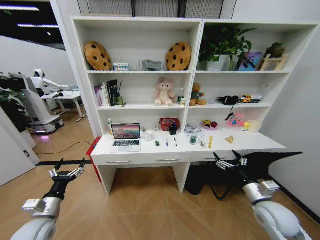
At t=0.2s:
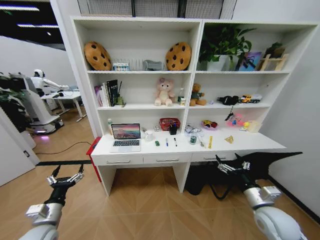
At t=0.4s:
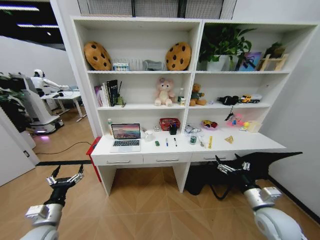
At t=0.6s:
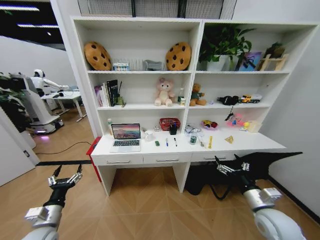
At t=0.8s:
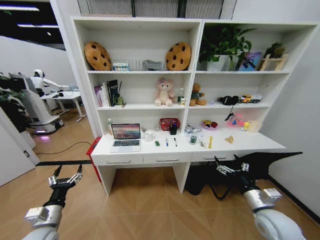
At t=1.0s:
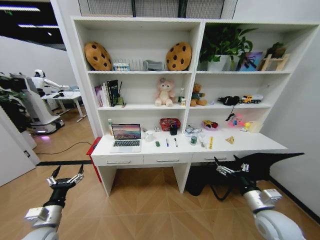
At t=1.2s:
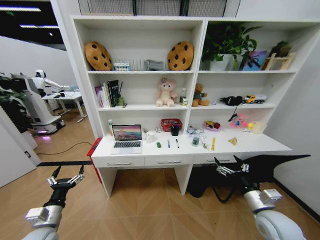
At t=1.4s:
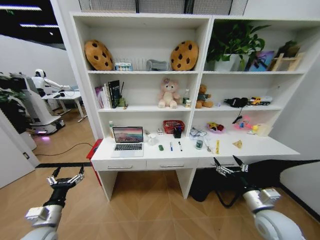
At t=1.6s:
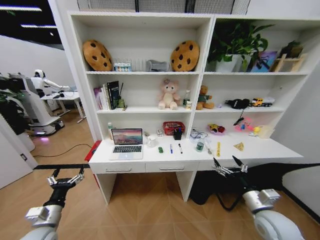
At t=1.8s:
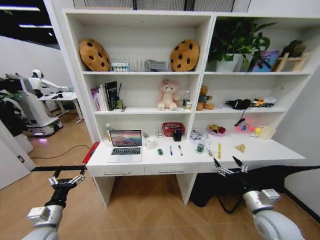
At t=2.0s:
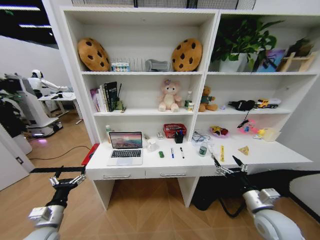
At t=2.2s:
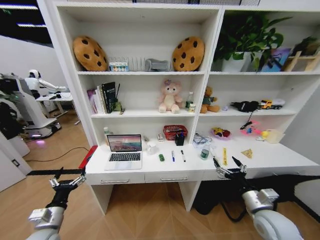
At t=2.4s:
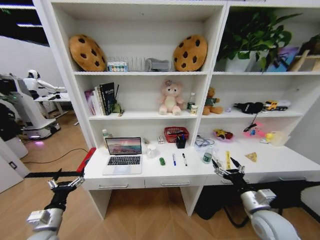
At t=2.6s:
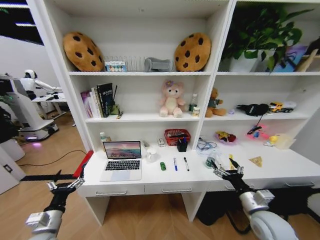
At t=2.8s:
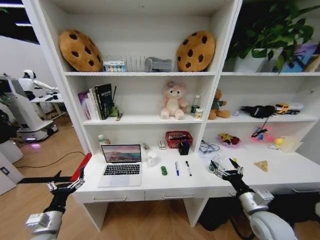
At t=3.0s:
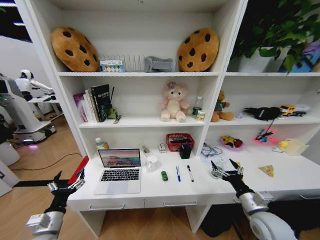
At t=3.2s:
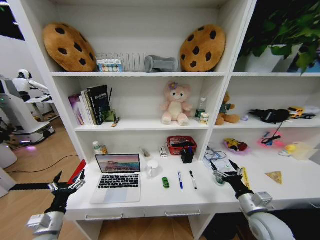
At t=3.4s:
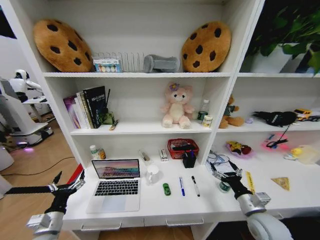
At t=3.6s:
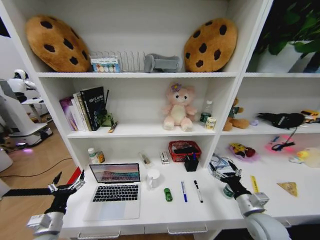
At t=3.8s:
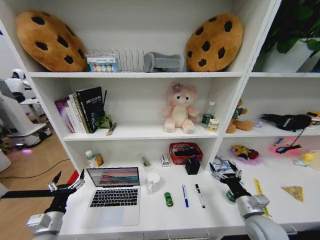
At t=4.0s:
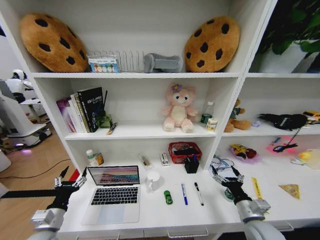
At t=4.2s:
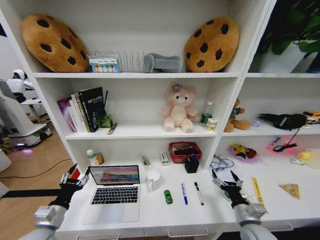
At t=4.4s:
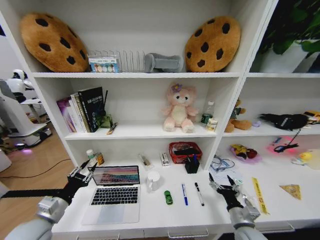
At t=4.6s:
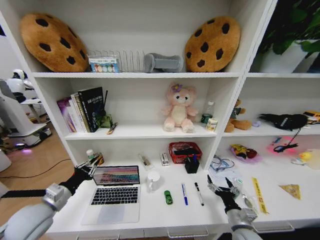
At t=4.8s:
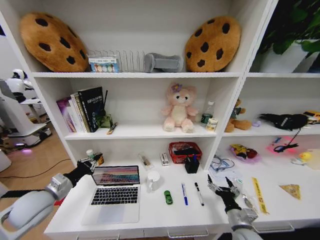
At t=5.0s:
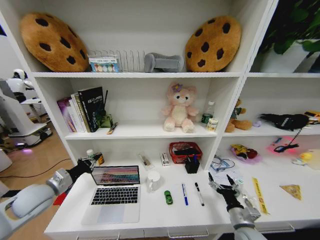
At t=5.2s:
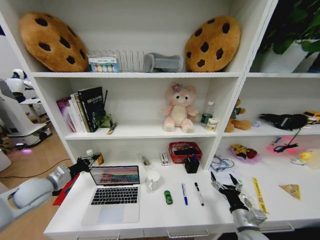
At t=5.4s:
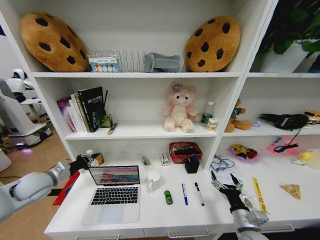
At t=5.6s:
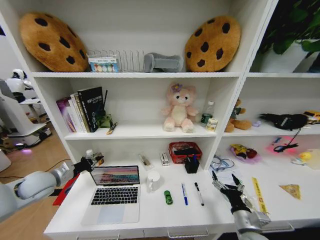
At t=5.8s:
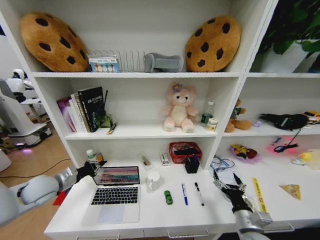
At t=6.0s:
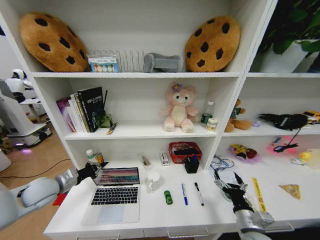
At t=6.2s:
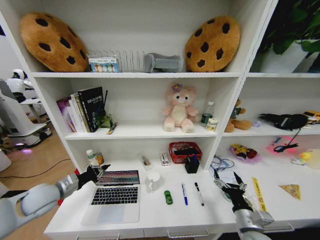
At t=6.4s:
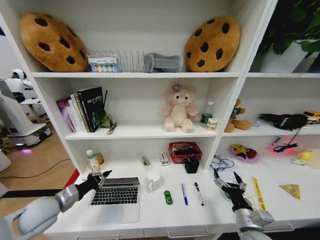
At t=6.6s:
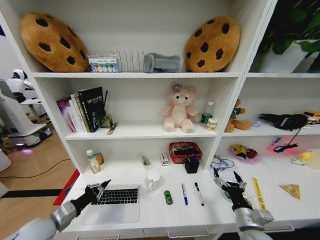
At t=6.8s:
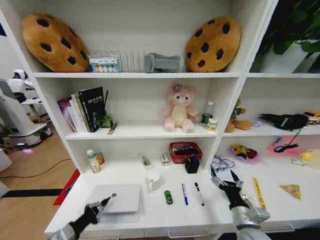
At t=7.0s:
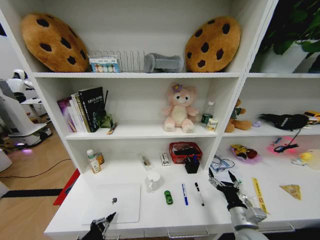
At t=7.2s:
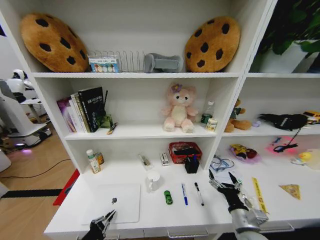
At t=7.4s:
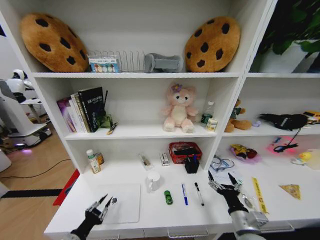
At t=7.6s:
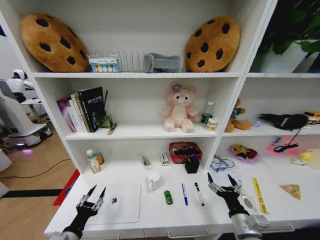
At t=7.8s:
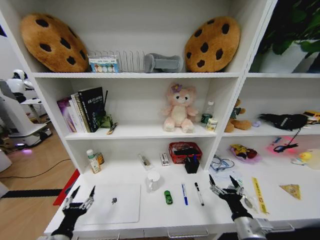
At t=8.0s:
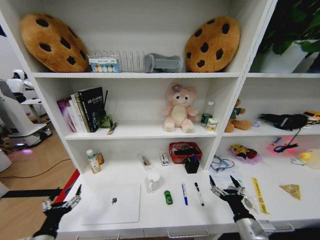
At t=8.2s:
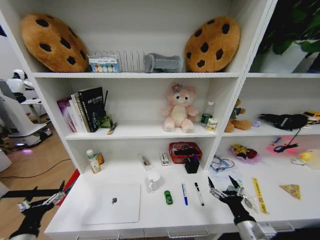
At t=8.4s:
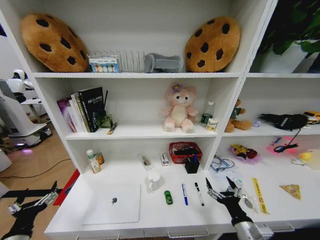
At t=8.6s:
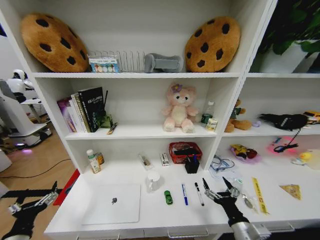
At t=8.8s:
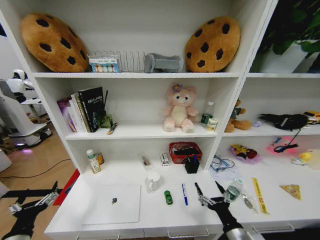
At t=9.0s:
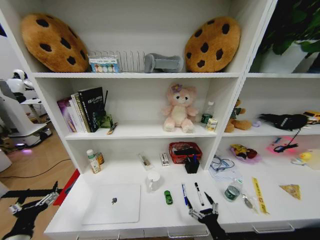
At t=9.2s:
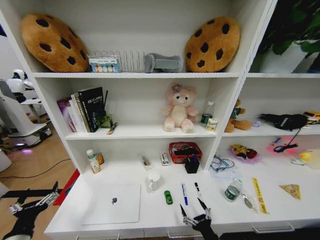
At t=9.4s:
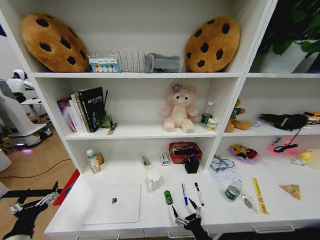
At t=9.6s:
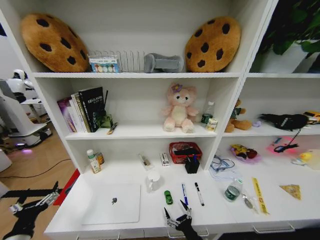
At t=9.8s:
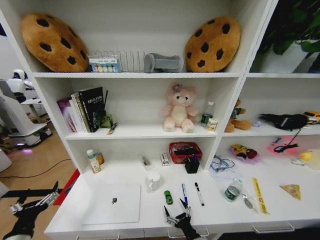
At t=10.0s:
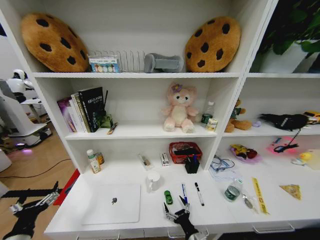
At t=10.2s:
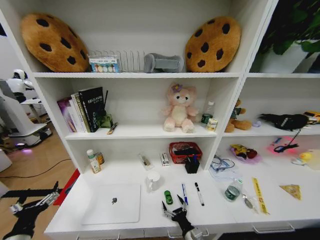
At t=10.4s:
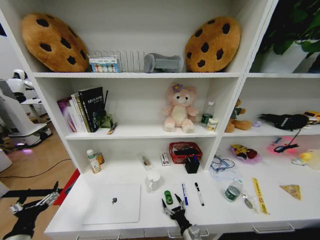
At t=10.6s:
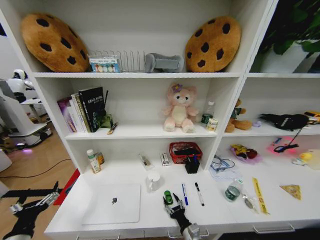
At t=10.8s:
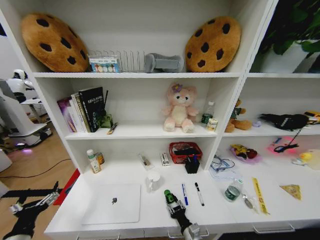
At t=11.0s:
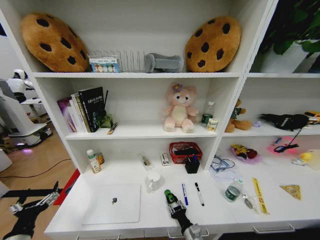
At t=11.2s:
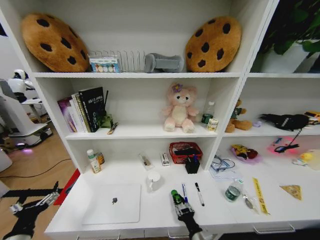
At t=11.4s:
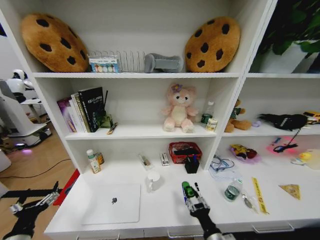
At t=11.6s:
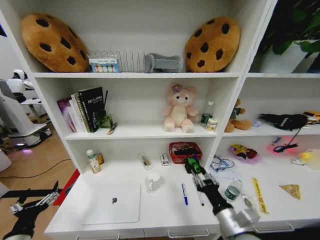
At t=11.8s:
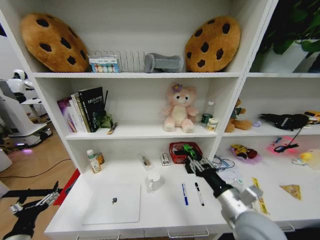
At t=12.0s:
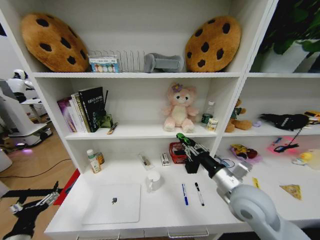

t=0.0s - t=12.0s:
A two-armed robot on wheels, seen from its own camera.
Task of the whole recording: Organize the objects on the table.
t=3.0s - t=4.4s: The left gripper travels upward by some 5 cm, and closes up. The right gripper goes roughly 5 cm downward.
t=4.4s - t=6.0s: The left gripper travels forward by roughly 10 cm, and closes.
t=6.0s - t=7.6s: The left gripper shifts roughly 25 cm backward, downward and to the right, and opens.
t=7.6s - t=9.0s: The right gripper is displaced backward by roughly 5 cm. Meanwhile the left gripper is displaced to the left by about 10 cm, and opens up.
t=9.0s - t=10.4s: The right gripper is displaced downward, to the left and forward by about 15 cm.
t=10.4s - t=12.0s: The right gripper travels upward by roughly 30 cm, and closes its fingers.

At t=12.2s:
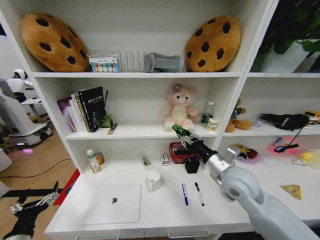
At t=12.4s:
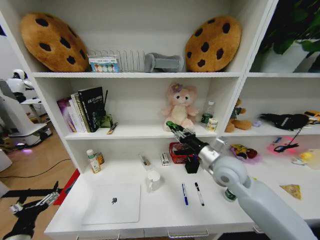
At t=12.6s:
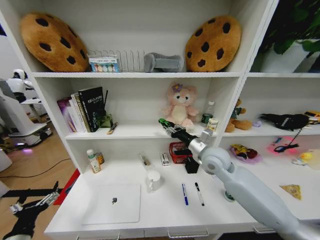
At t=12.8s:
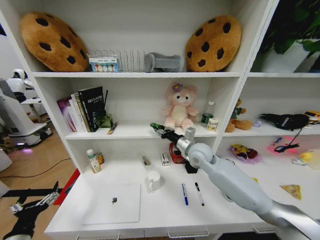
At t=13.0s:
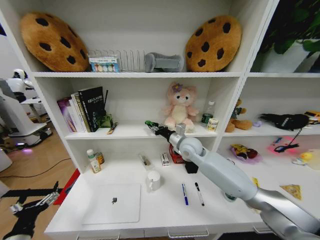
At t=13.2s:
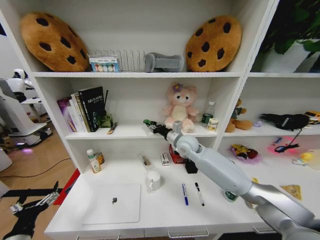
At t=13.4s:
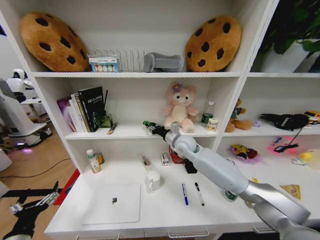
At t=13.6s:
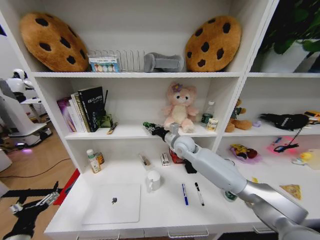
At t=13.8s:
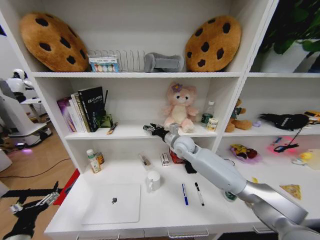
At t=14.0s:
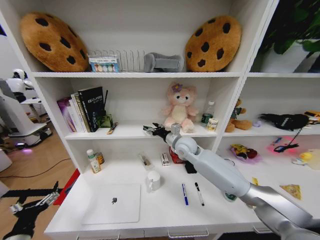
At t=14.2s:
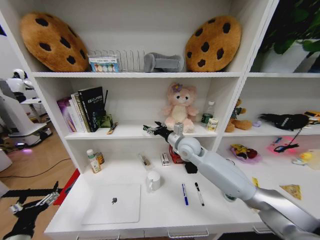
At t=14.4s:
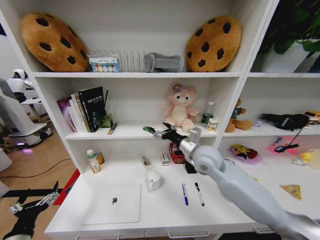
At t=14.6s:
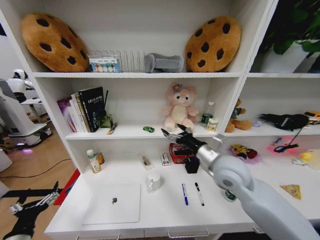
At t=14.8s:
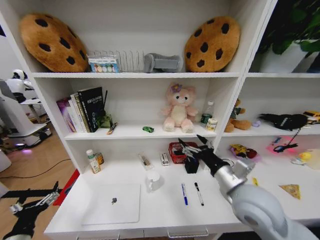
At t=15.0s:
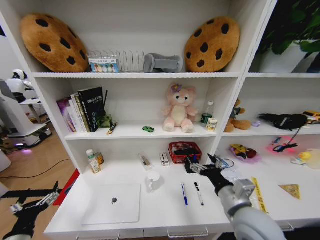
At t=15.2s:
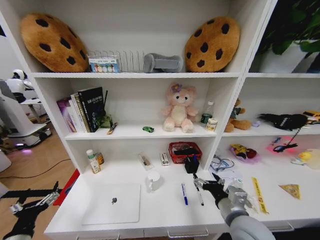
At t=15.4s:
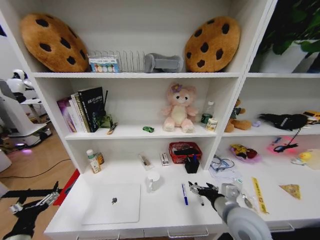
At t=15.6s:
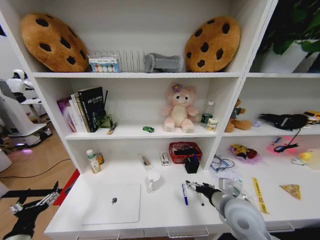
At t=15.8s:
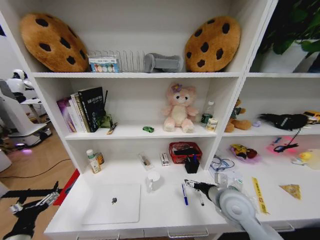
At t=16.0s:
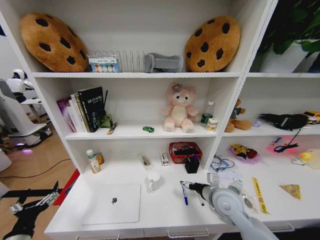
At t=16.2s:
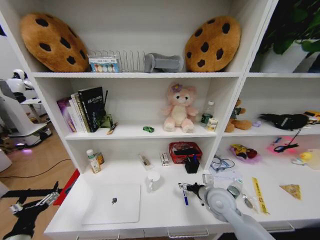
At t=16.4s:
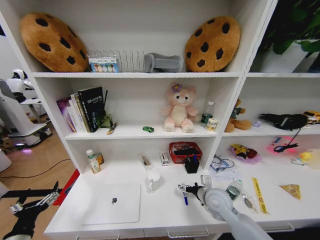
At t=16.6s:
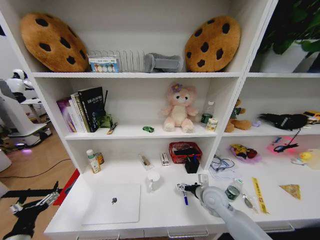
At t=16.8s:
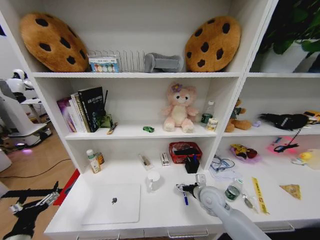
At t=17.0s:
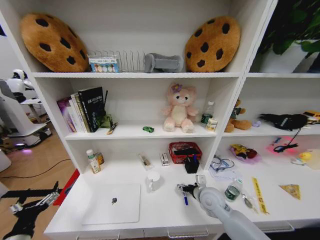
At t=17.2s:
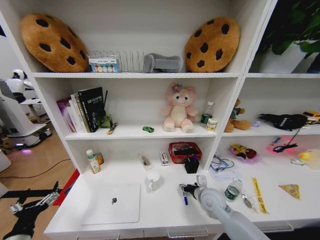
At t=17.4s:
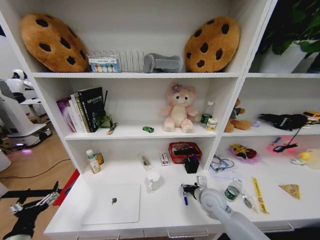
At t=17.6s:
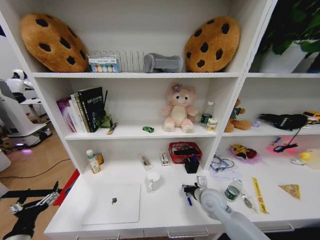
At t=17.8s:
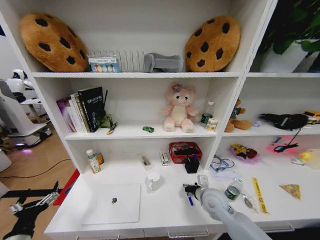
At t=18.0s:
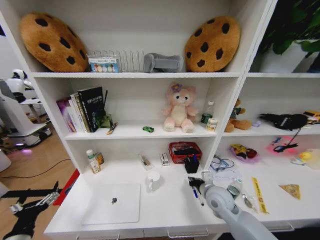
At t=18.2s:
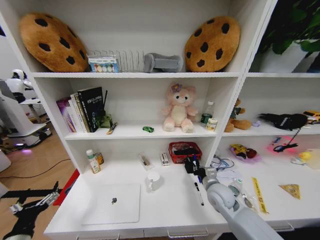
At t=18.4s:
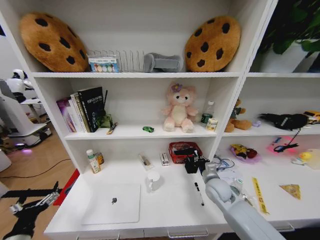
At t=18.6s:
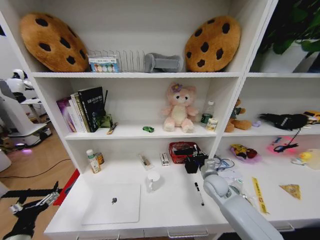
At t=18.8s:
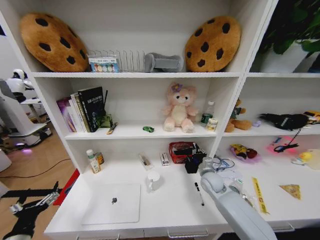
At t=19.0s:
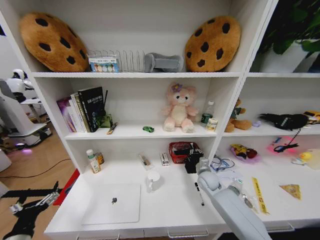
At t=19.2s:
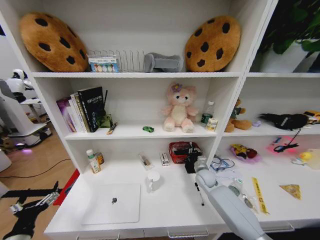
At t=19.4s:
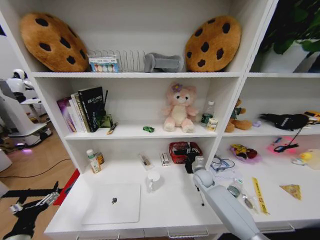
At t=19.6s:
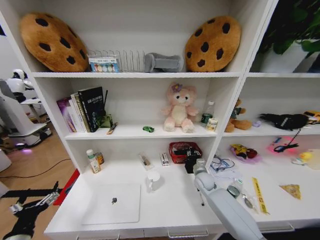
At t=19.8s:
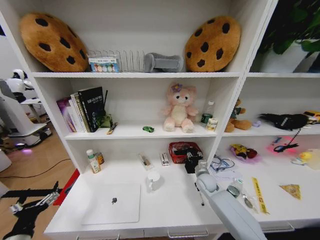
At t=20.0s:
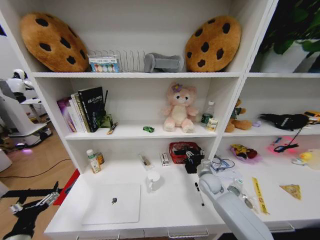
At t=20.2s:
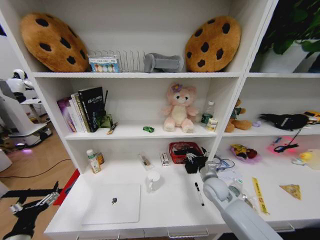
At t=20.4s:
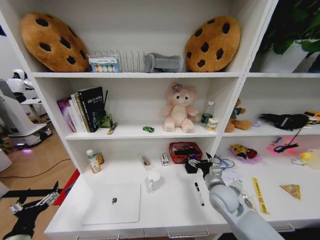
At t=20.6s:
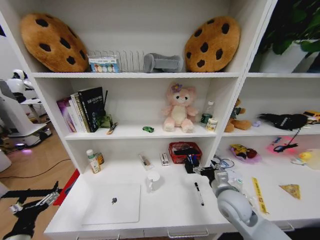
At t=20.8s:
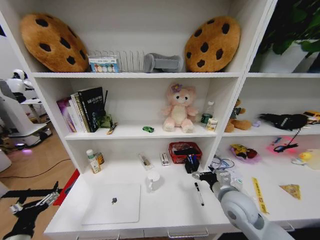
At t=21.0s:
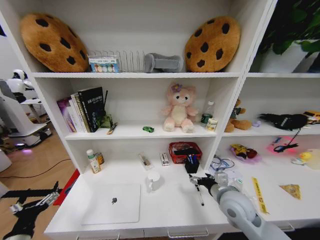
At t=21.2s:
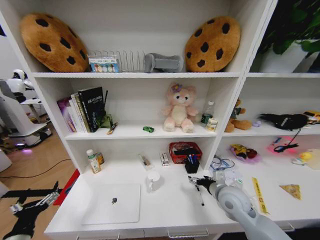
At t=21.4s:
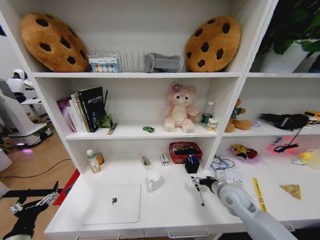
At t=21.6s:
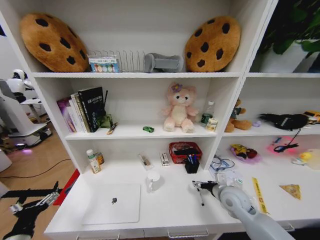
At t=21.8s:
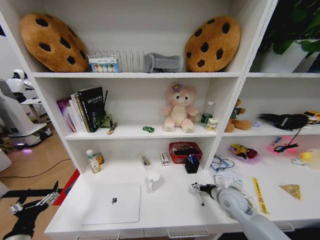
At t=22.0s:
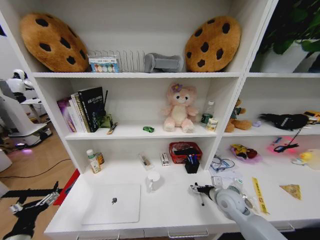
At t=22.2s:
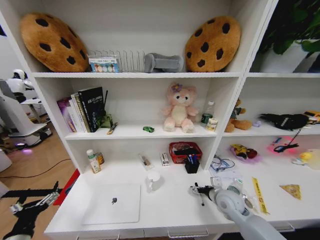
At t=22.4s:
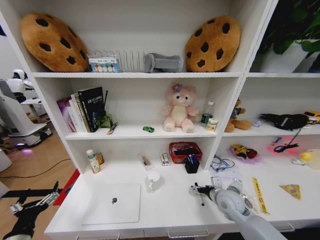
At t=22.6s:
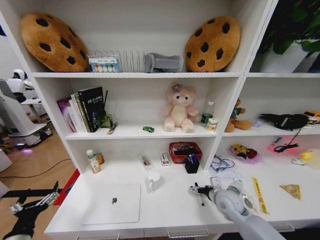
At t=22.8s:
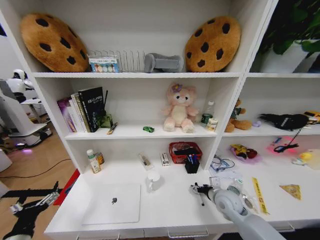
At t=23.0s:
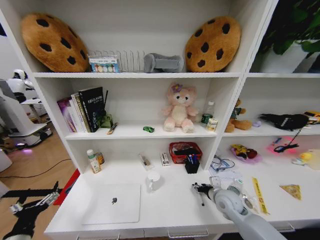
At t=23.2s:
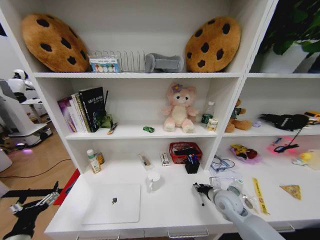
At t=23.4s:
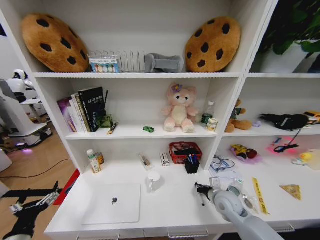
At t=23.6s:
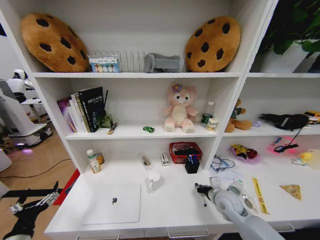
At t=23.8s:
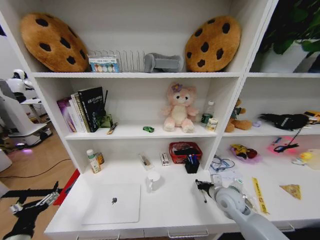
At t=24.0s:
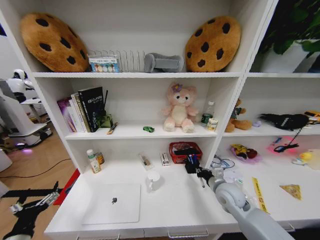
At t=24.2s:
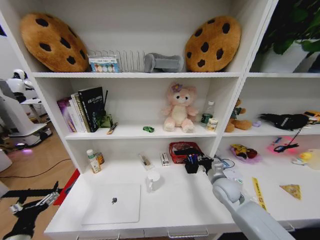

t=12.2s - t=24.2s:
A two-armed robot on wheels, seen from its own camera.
Task of the whole recording: Organize the objects on the table.
t=12.2s - t=13.8s: The right gripper shifts approximately 25 cm forward and to the left.
t=13.8s - t=15.2s: The right gripper travels backward by approximately 30 cm, and opens its fingers.
t=15.2s - t=16.6s: The right gripper shifts some 15 cm forward and downward.
t=16.6s - t=18.2s: The right gripper closes its fingers.
t=18.2s - t=19.8s: The right gripper shifts some 10 cm forward and downward.
t=19.8s - t=21.2s: The right gripper heads backward and upward, covering some 20 cm, and opens.
t=21.2s - t=22.6s: The right gripper shifts roughly 5 cm downward.
t=22.6s - t=24.2s: The right gripper ends up approximately 5 cm from where it was, and closes.
